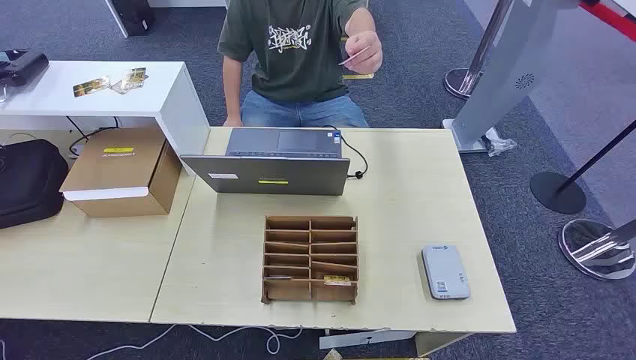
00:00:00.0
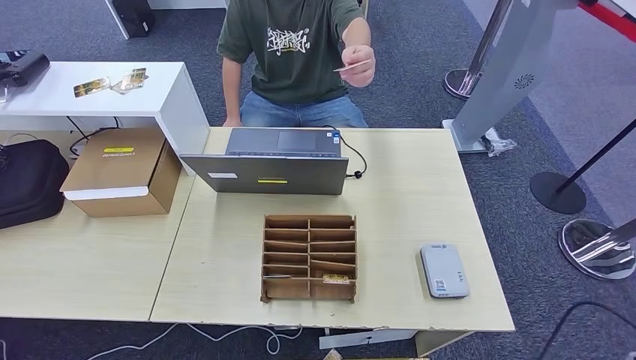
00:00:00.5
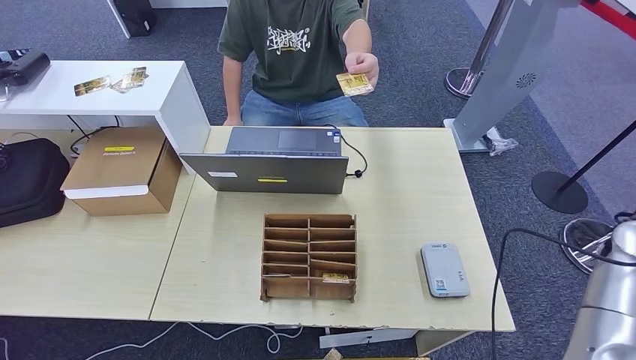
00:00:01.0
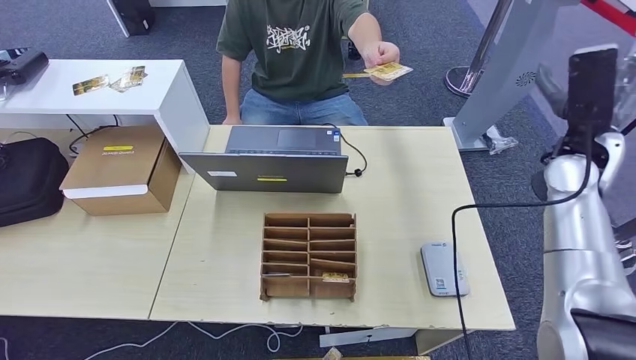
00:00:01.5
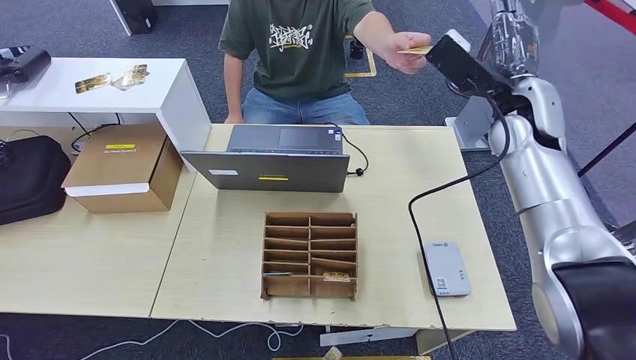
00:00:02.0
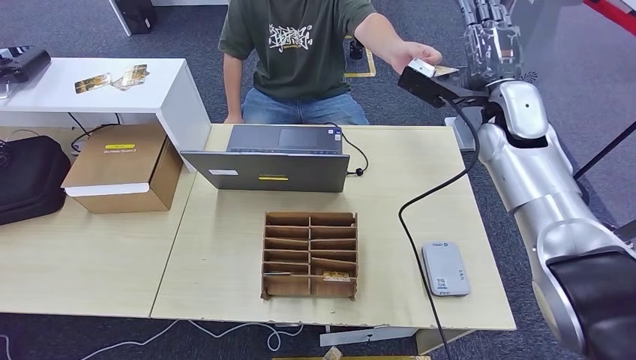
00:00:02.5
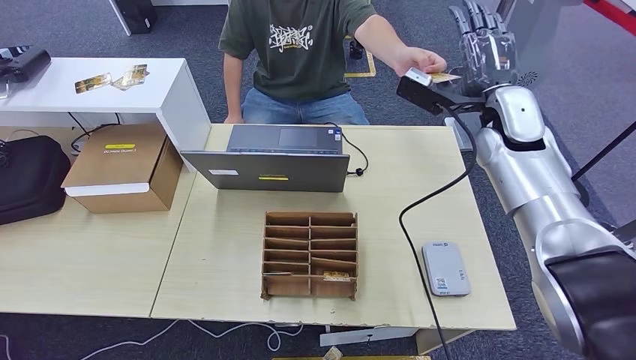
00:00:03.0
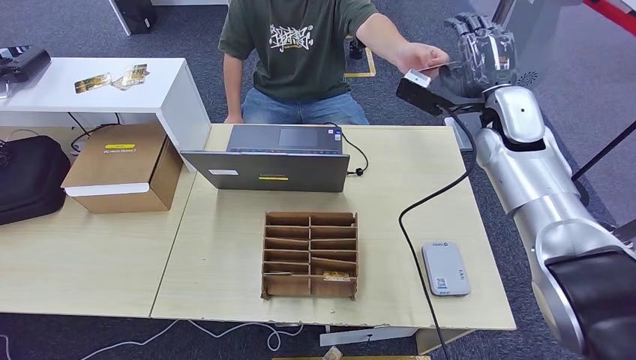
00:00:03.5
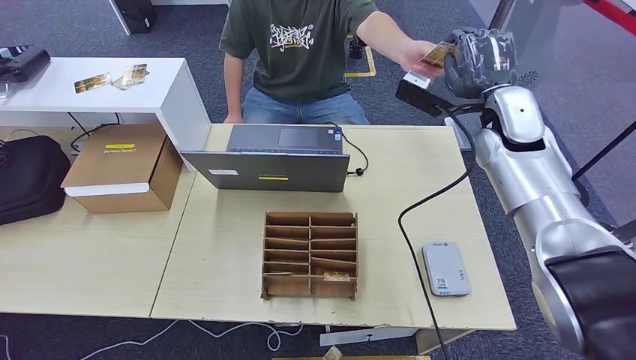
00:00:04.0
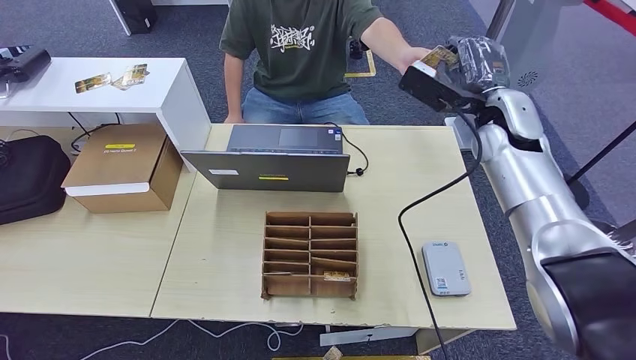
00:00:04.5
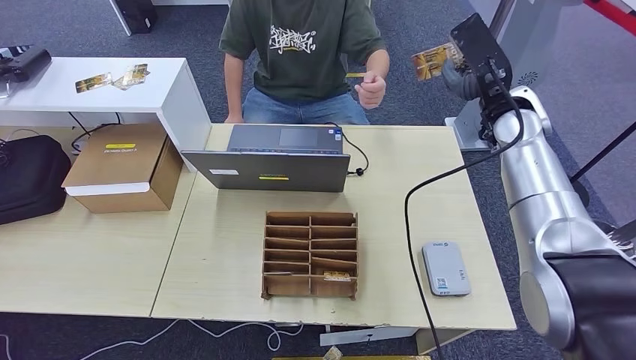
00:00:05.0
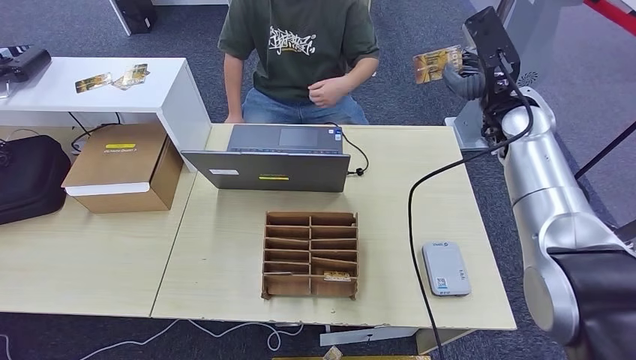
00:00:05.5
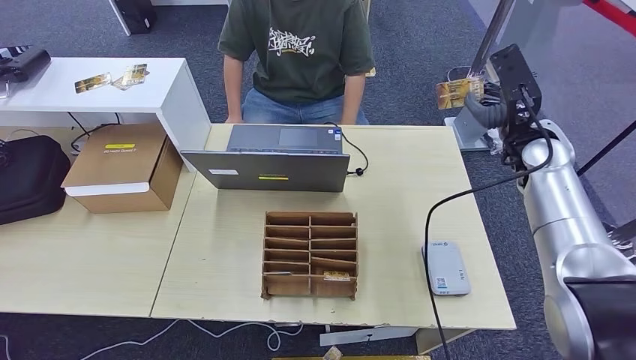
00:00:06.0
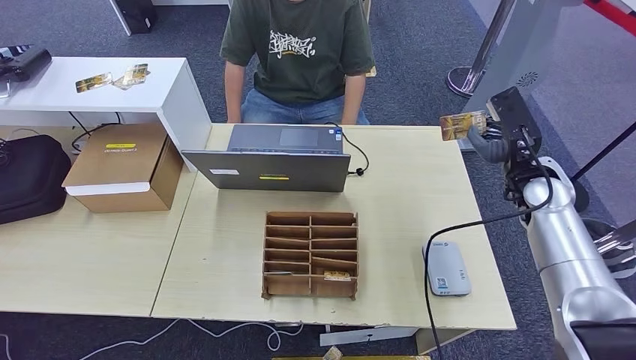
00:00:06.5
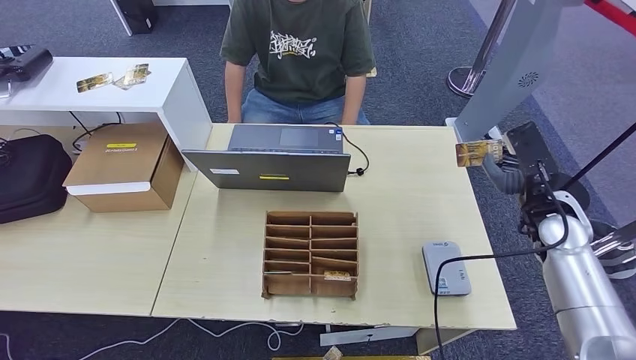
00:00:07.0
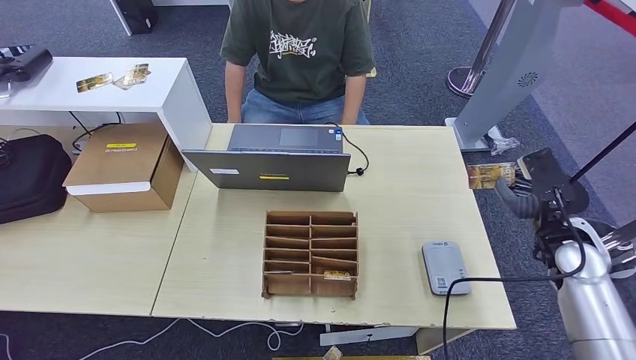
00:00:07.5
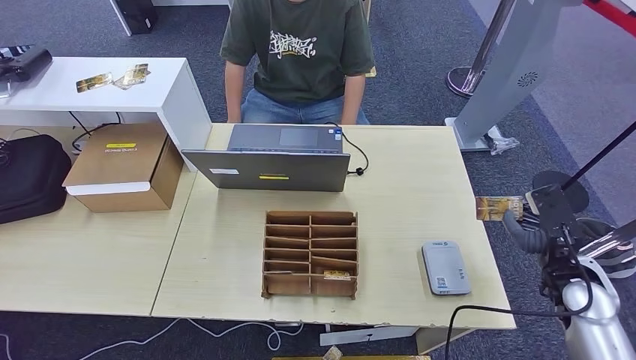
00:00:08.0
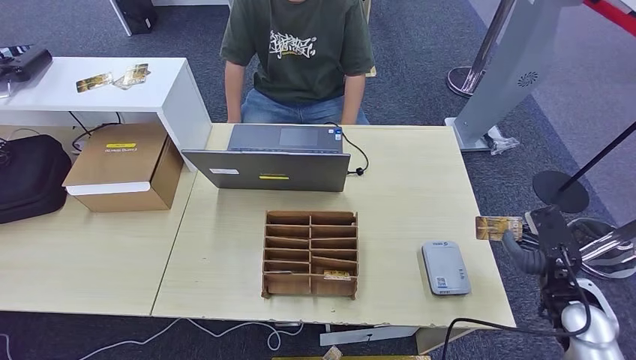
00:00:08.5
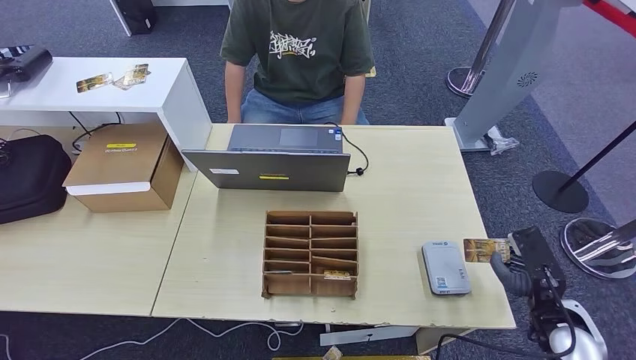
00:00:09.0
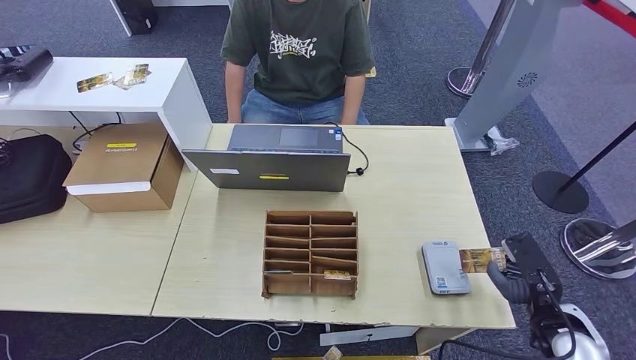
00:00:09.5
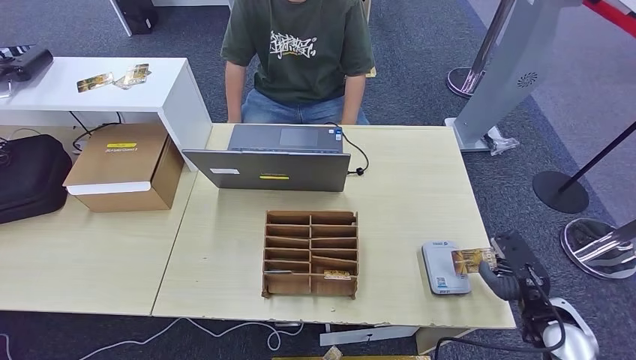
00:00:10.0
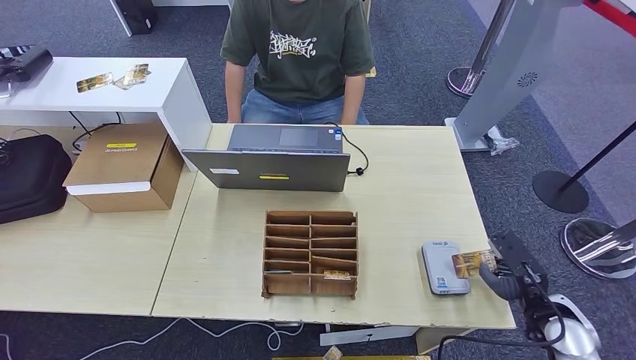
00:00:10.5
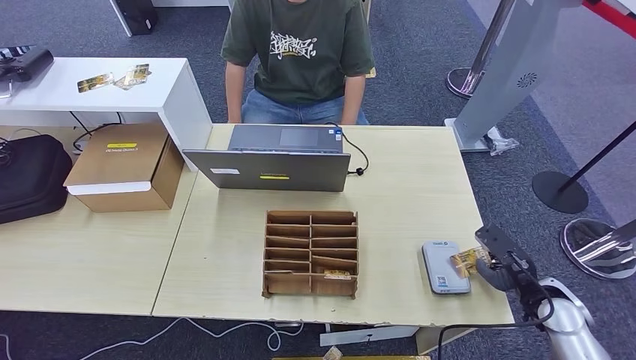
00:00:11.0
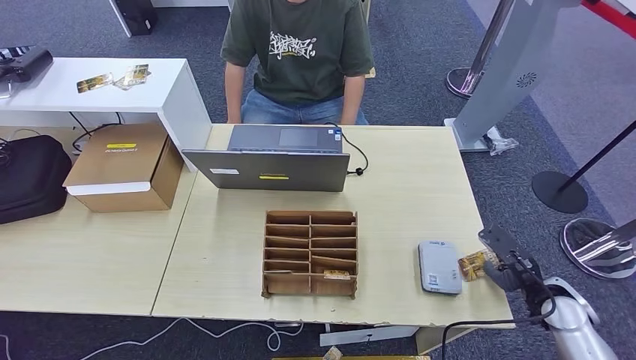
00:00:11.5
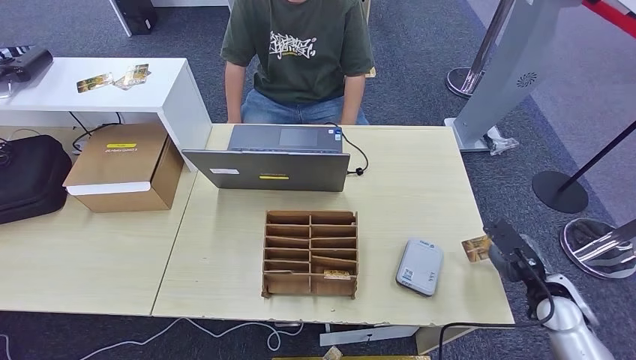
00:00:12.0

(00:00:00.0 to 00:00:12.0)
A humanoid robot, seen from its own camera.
Step, 00:00:00.0 - 00:00:04.5: Take the ID card from the person's hand.
Step, 00:00:05.0 - 00:00:10.5: Place the ID card on the card reader.
00:00:04.0 - 00:00:06.0: The right hand travels to the right by some 5 cm.
00:00:06.0 - 00:00:08.0: The right hand is displaced backward and downward by roughly 20 cm.
00:00:08.0 - 00:00:10.0: The right hand travels backward and downward by approximately 5 cm.
00:00:10.0 - 00:00:12.0: The hands stay close to where they were, moving slightly.

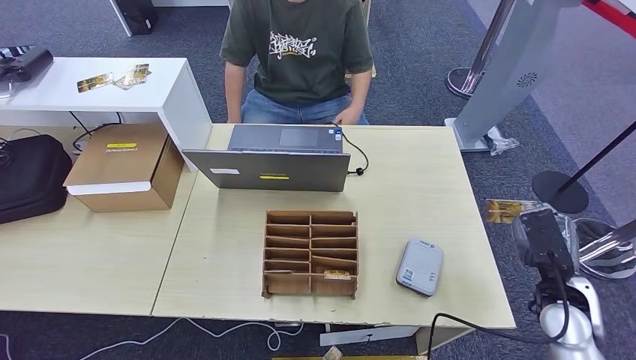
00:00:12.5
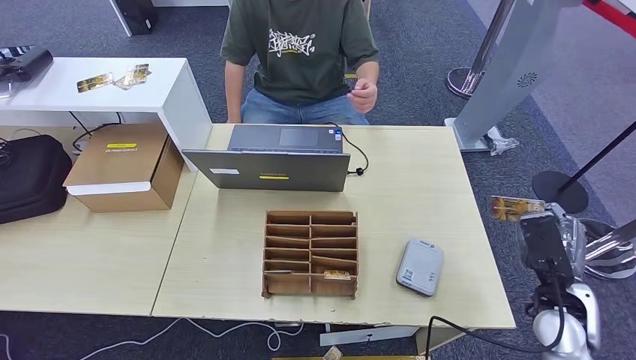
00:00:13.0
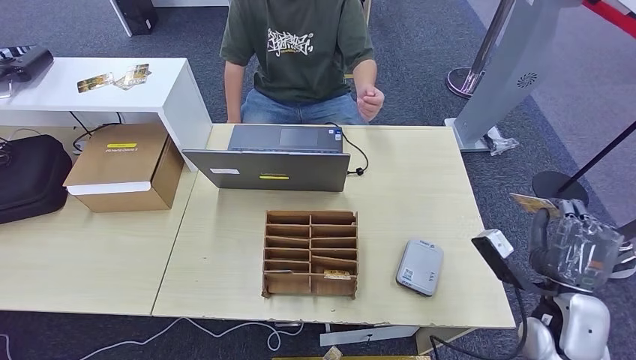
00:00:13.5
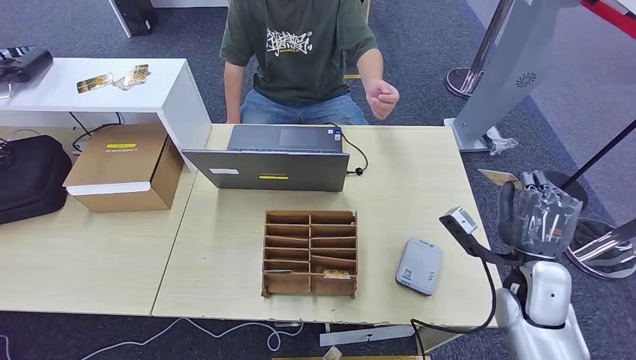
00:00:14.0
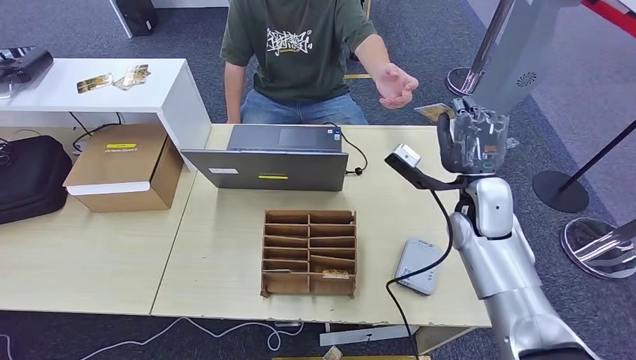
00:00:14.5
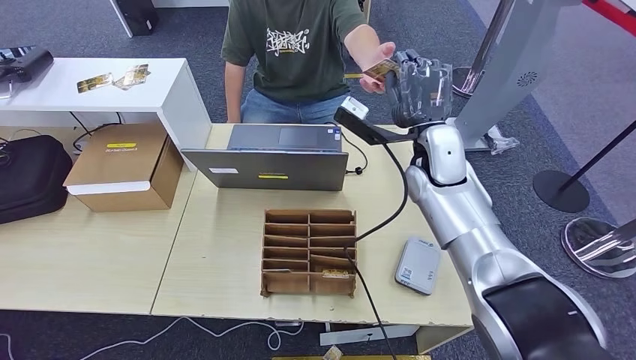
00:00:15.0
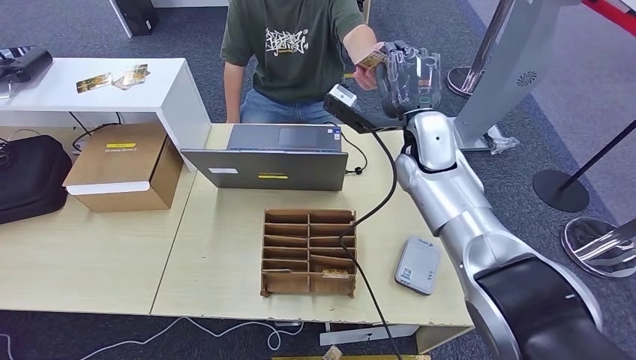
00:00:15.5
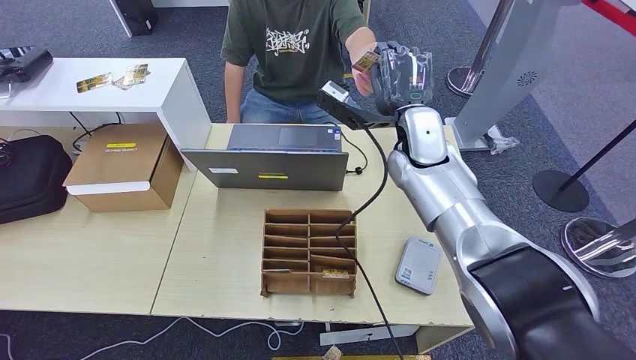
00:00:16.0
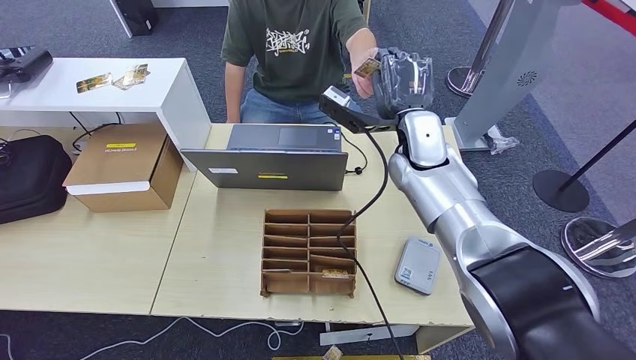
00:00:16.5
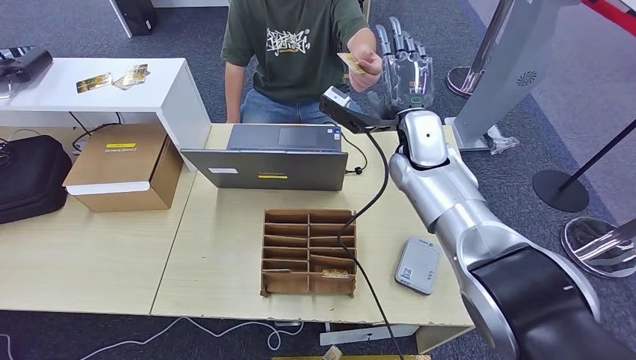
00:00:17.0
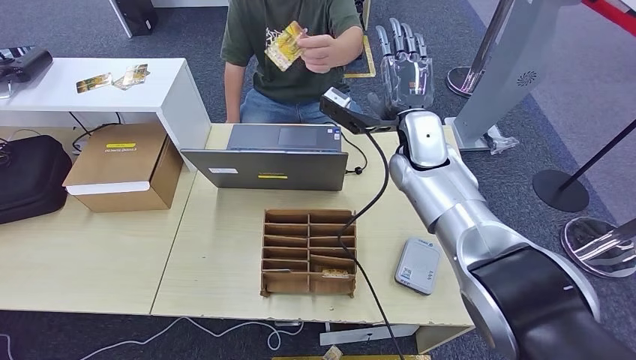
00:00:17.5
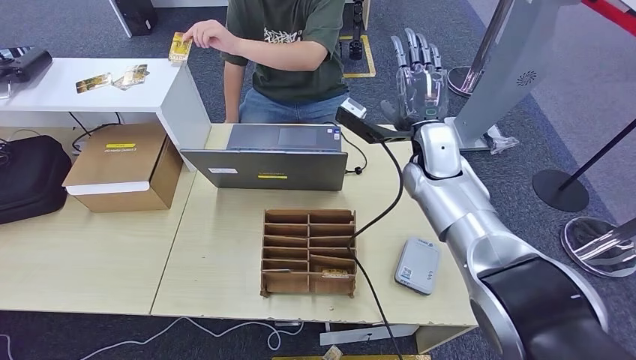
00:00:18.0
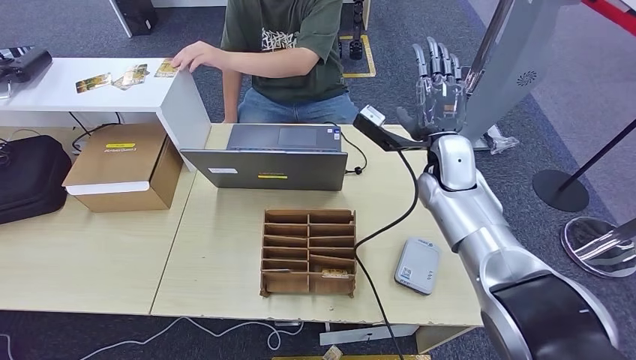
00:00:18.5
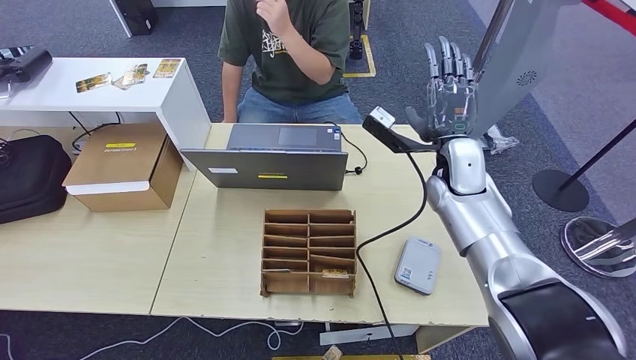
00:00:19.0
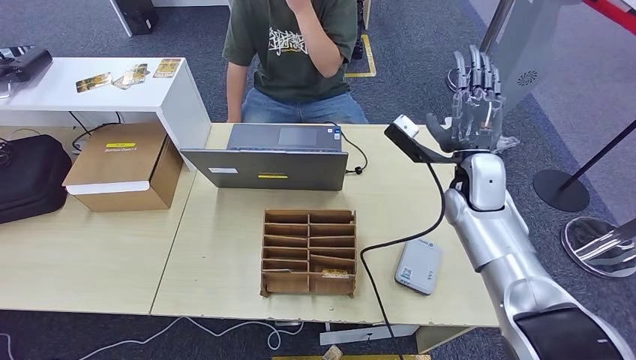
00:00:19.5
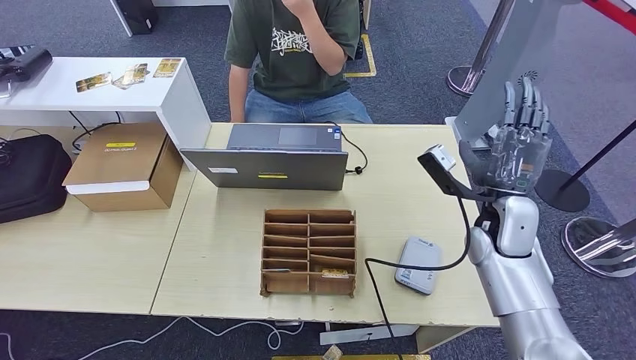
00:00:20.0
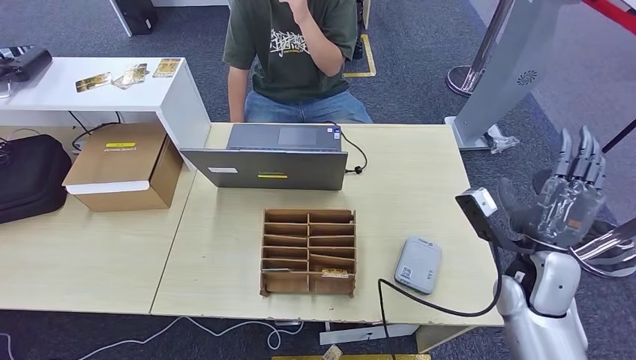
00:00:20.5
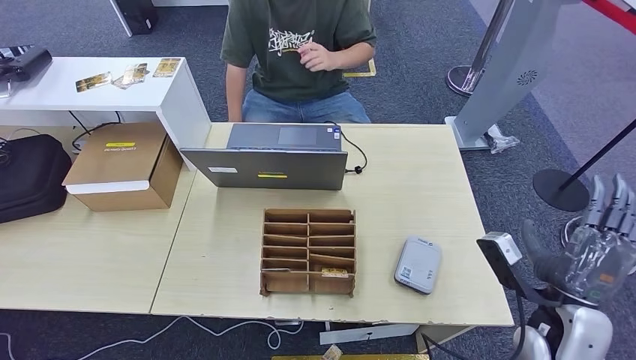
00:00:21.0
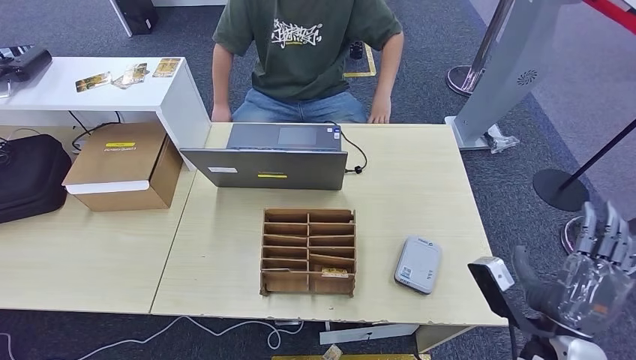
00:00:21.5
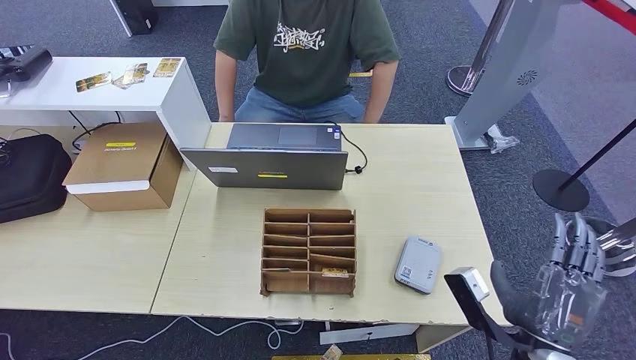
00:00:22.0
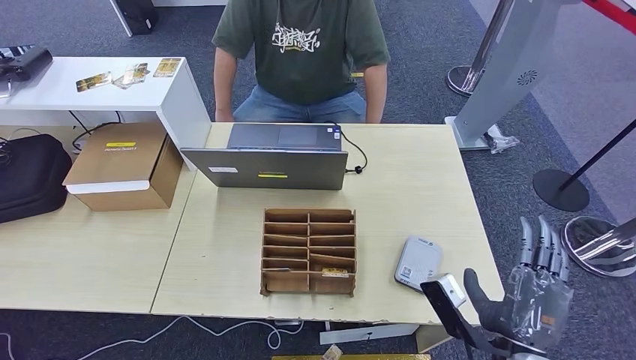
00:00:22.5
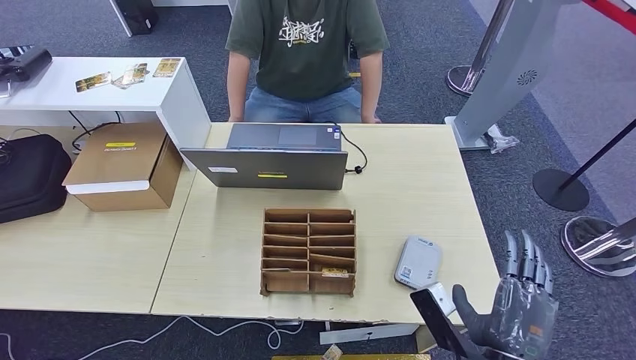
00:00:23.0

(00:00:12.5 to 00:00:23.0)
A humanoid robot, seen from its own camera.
Step, 00:00:12.5 - 00:00:17.0: Hand the ID card to the person.
00:00:12.5 - 00:00:14.5: The right hand travels forward, to the left and upward by approximately 20 cm.
00:00:14.5 - 00:00:16.5: The right hand shifts some 15 cm to the left, forward and upward.
00:00:16.5 - 00:00:19.0: The right hand moves to the right, approximately 5 cm.
00:00:19.0 - 00:00:21.0: The right hand shifts approximately 25 cm backward and to the right.
00:00:21.0 - 00:00:23.0: The right hand heads to the left and backward, covering about 15 cm.
